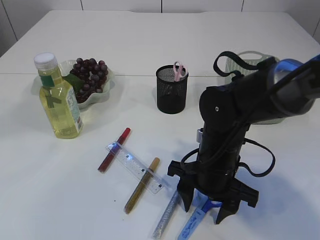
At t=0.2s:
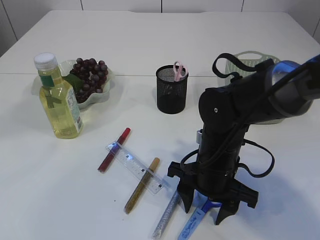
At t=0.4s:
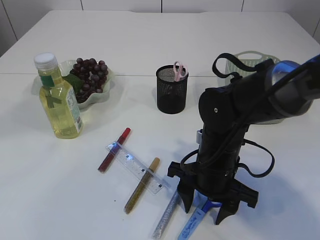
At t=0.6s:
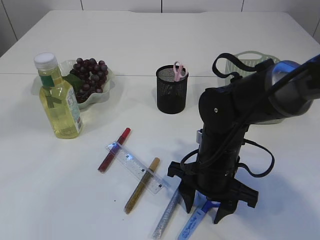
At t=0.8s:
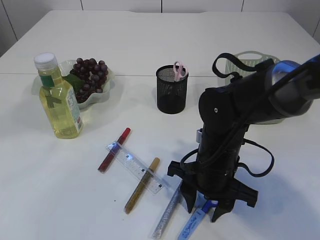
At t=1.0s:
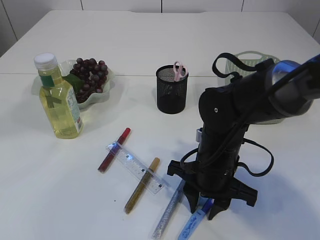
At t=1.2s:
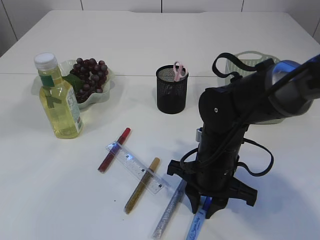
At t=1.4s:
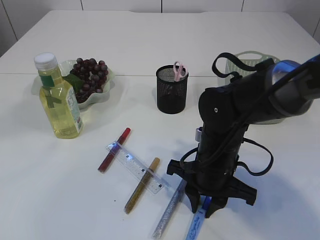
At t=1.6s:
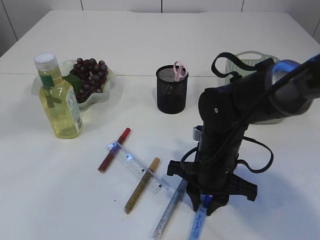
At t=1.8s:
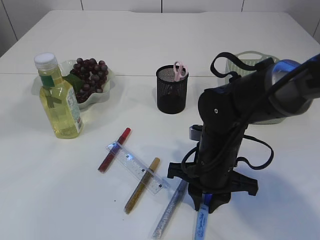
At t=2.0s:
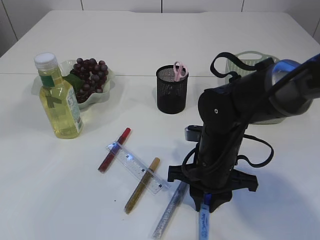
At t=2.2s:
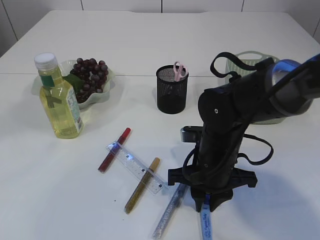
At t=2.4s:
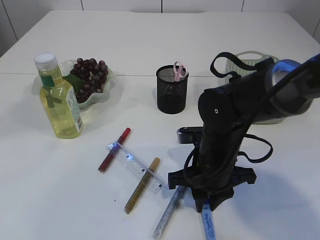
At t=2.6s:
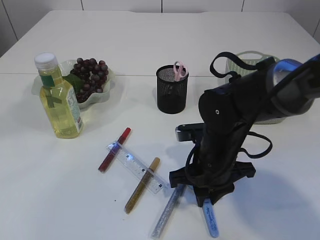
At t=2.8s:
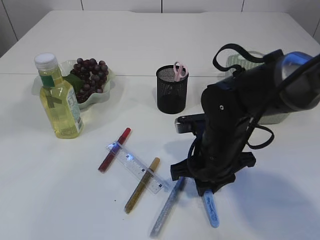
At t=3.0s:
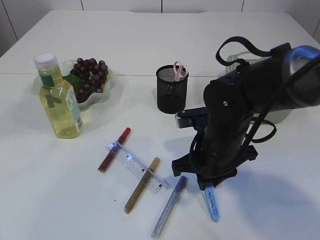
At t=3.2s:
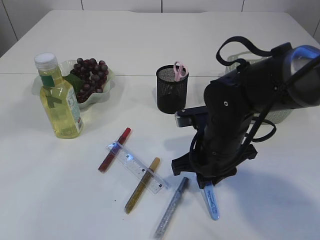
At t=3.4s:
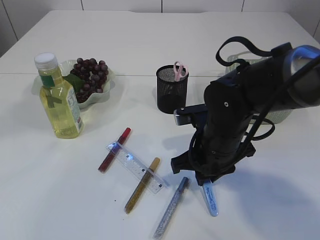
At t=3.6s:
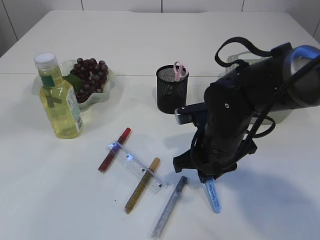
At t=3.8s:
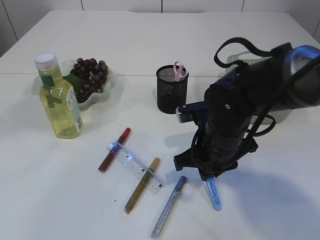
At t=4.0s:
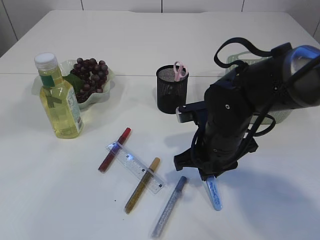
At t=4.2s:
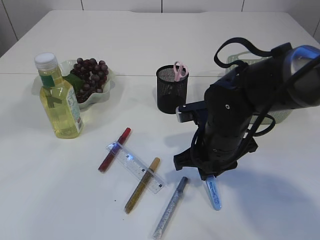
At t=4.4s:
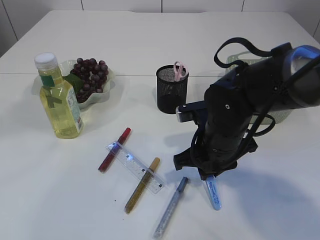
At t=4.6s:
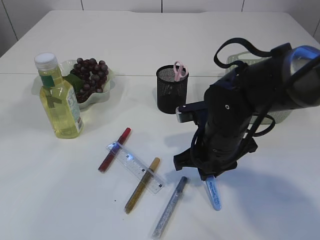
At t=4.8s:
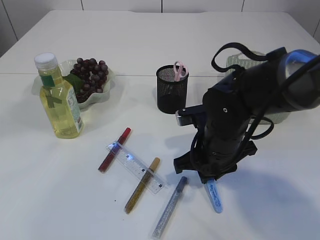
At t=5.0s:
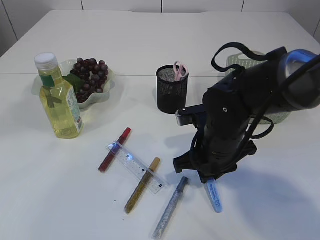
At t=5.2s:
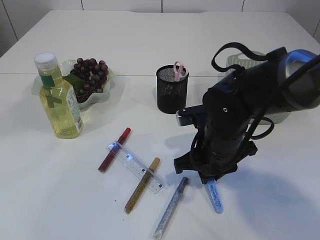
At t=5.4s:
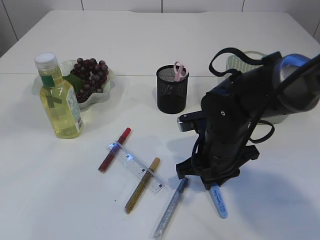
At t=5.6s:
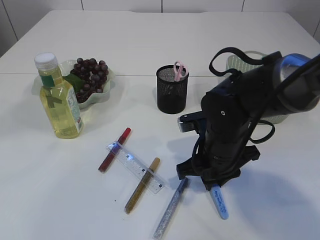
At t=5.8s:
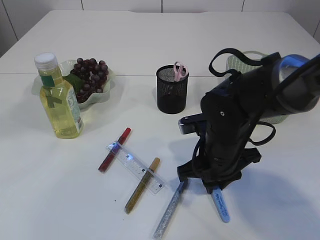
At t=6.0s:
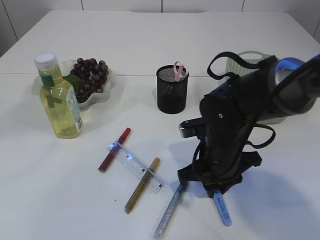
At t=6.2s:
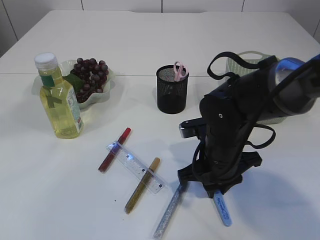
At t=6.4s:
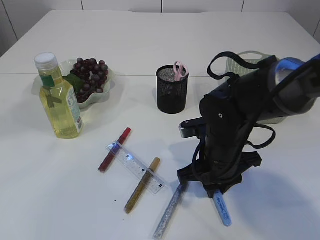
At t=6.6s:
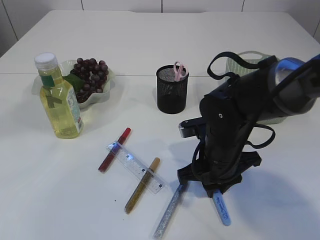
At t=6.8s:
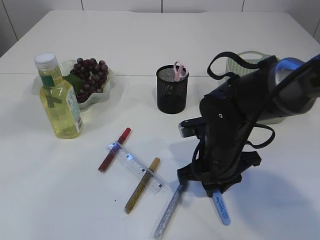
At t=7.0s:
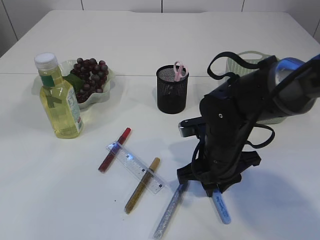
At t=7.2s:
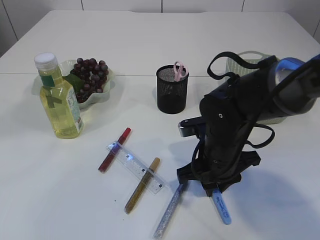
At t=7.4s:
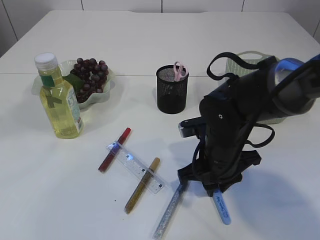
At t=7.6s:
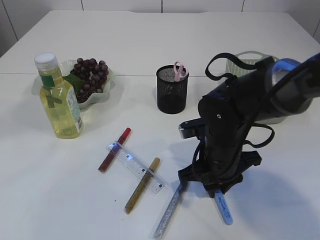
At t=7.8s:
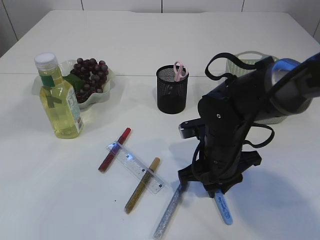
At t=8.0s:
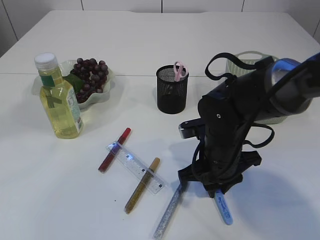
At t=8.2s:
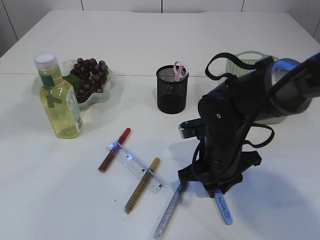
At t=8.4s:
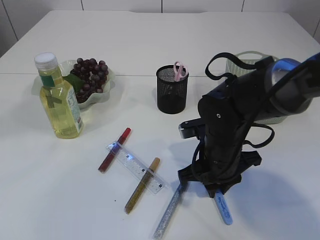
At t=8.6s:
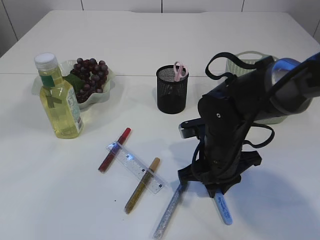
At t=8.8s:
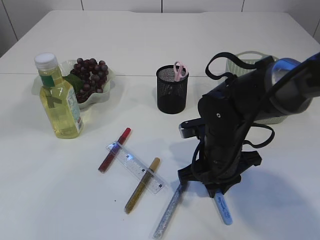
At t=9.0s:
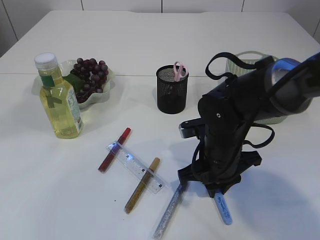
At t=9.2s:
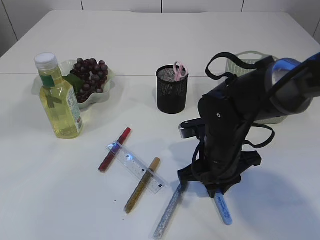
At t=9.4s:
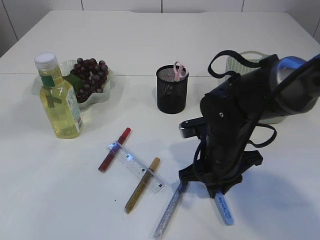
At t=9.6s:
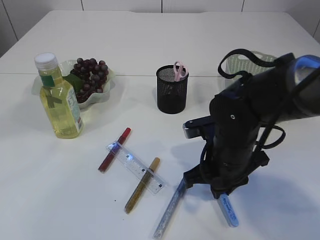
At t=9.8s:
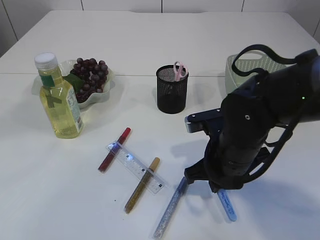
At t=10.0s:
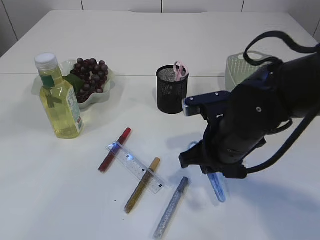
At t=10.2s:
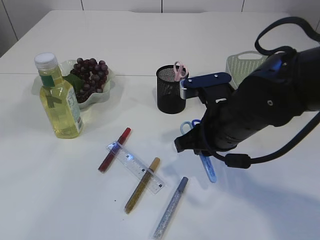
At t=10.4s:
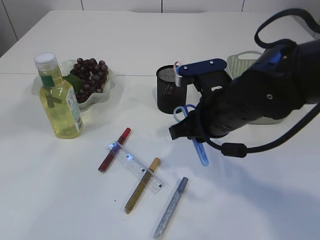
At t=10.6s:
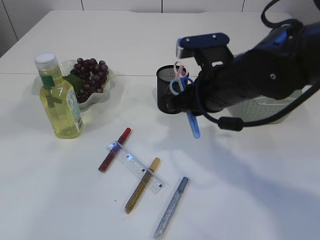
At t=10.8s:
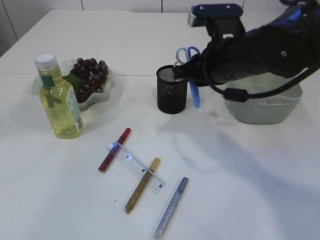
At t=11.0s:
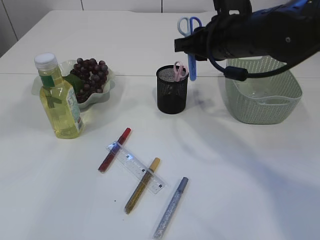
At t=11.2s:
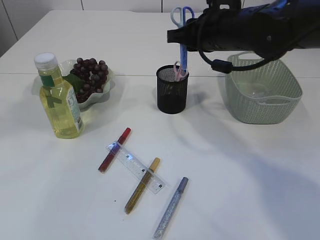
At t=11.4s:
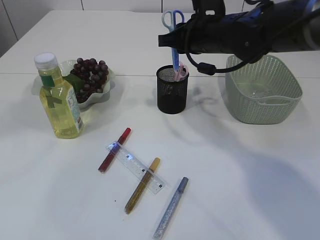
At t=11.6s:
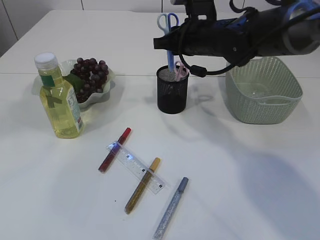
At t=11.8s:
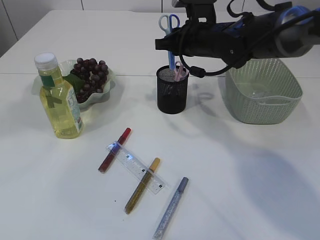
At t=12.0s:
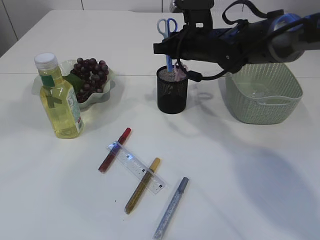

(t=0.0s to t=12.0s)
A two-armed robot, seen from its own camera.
Step, t=0.0s - t=10.4s: pick up the blue scissors.
t=0.0s - t=1.6s: The right gripper closes its fingers.
t=3.0s - t=6.0s: The grippers move only a little.
t=6.0s - t=9.0s: Both grippers stay about where they are.
t=9.0s - t=10.4s: The right gripper shifts approximately 10 cm upward.
t=10.4s - t=12.0s: The right gripper travels forward by about 15 cm.

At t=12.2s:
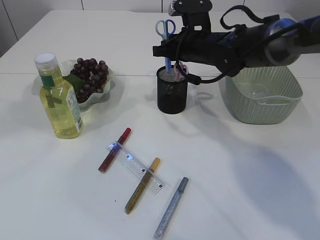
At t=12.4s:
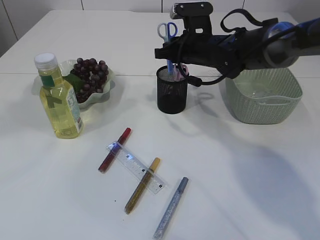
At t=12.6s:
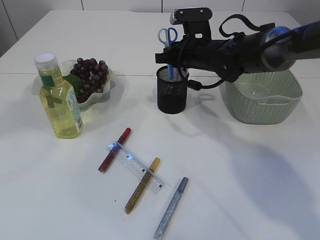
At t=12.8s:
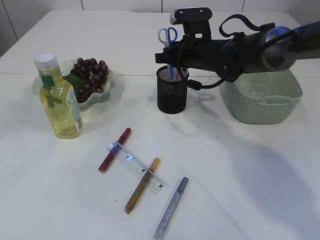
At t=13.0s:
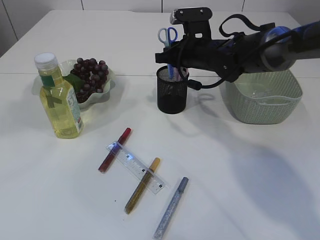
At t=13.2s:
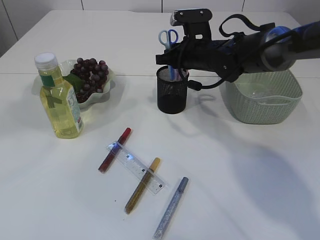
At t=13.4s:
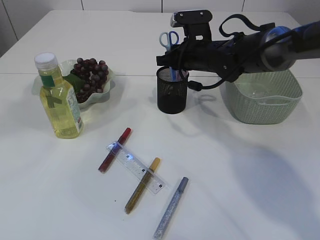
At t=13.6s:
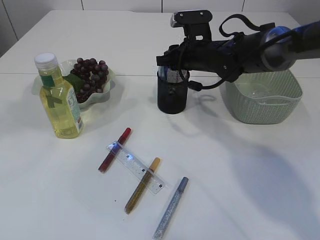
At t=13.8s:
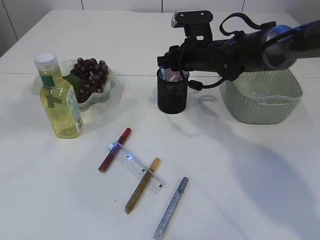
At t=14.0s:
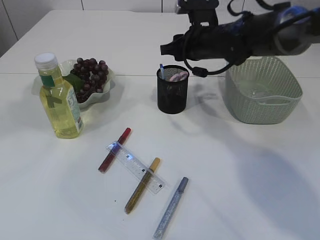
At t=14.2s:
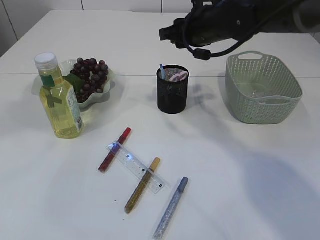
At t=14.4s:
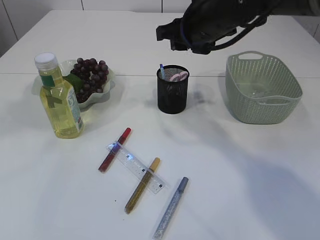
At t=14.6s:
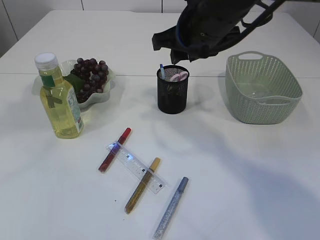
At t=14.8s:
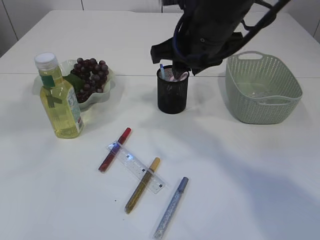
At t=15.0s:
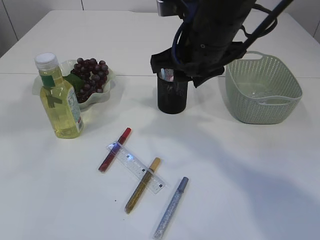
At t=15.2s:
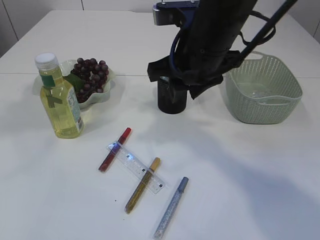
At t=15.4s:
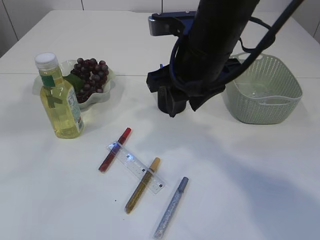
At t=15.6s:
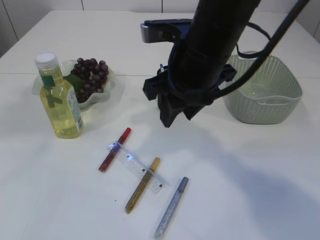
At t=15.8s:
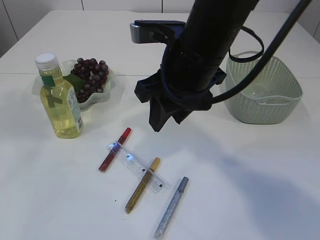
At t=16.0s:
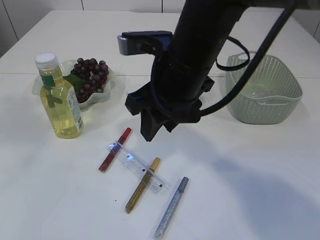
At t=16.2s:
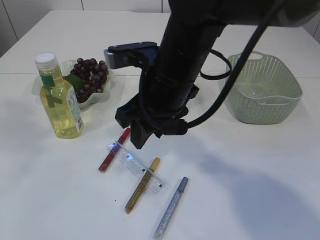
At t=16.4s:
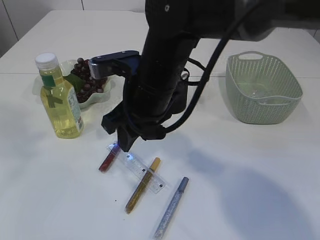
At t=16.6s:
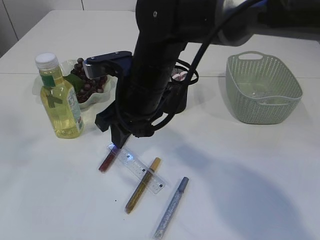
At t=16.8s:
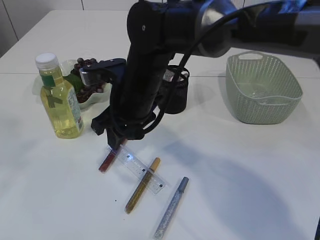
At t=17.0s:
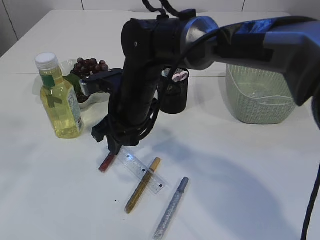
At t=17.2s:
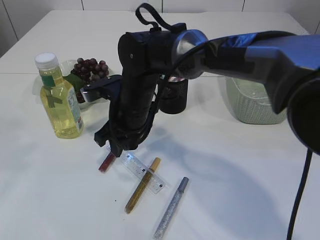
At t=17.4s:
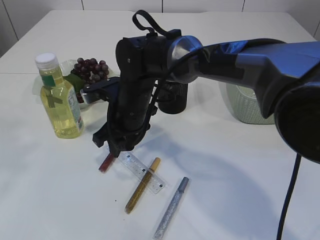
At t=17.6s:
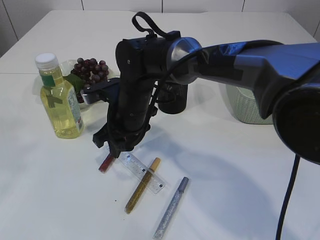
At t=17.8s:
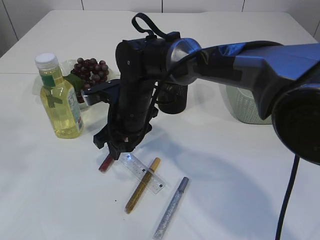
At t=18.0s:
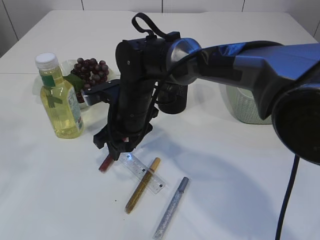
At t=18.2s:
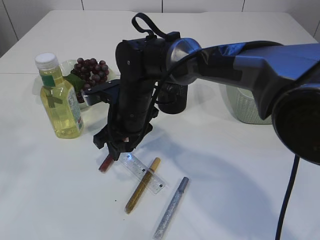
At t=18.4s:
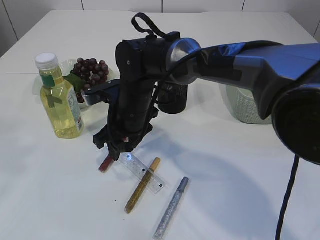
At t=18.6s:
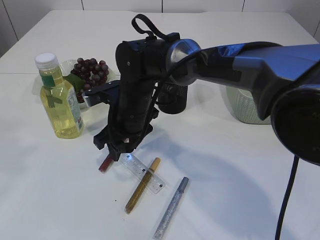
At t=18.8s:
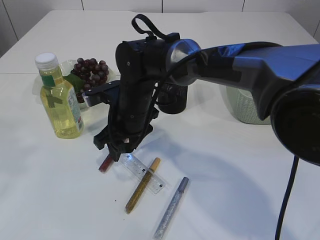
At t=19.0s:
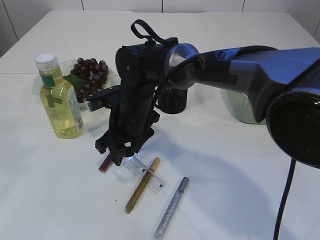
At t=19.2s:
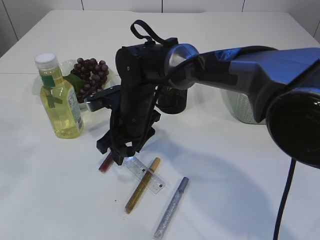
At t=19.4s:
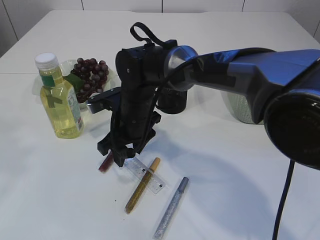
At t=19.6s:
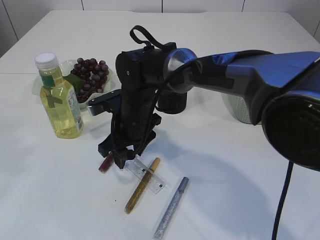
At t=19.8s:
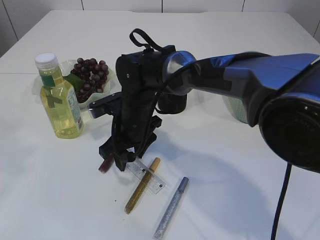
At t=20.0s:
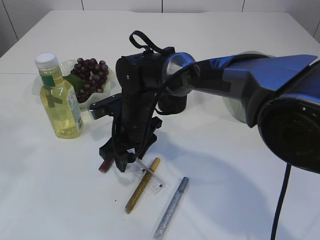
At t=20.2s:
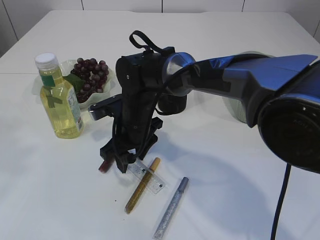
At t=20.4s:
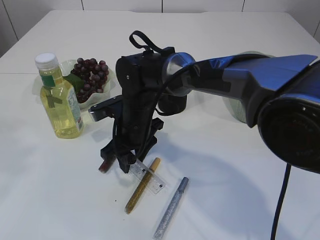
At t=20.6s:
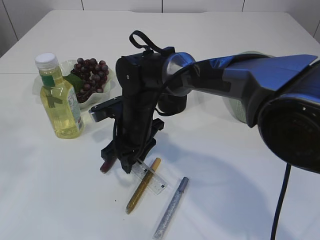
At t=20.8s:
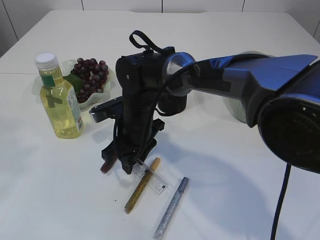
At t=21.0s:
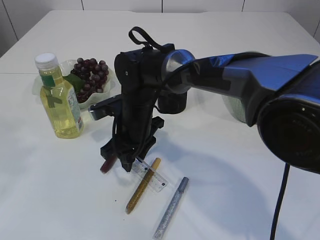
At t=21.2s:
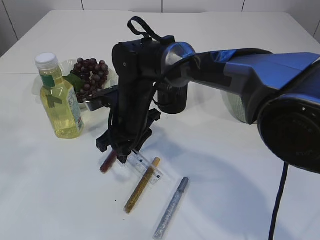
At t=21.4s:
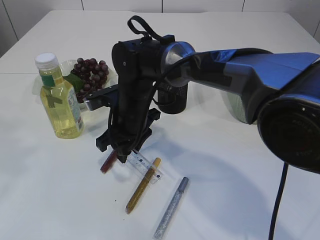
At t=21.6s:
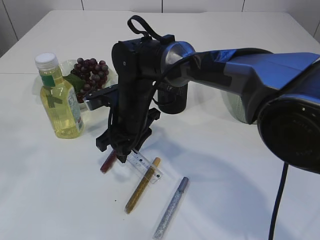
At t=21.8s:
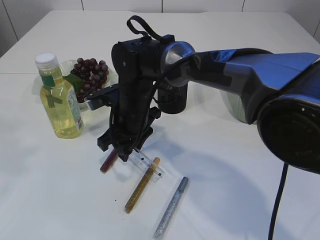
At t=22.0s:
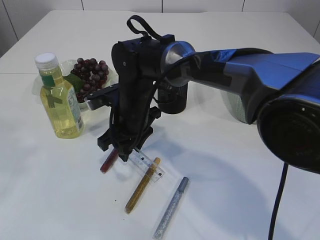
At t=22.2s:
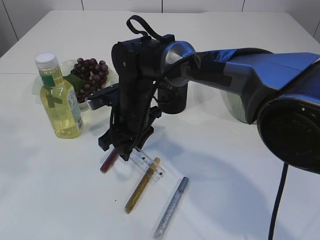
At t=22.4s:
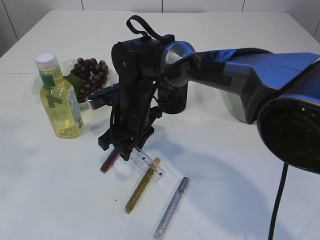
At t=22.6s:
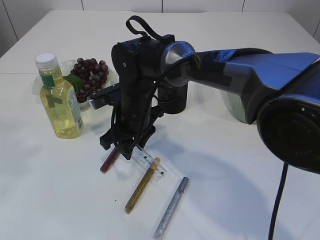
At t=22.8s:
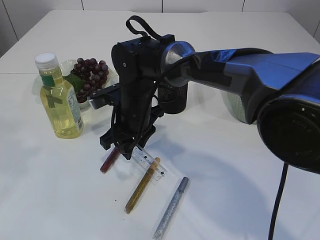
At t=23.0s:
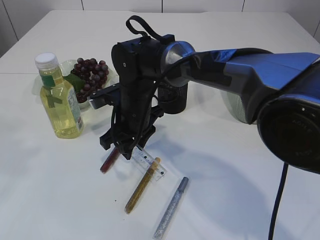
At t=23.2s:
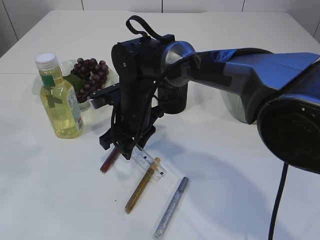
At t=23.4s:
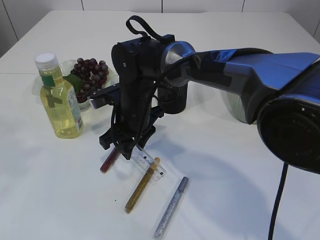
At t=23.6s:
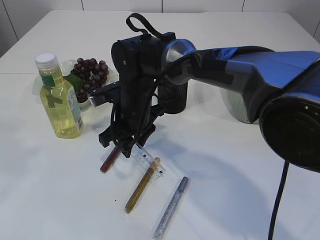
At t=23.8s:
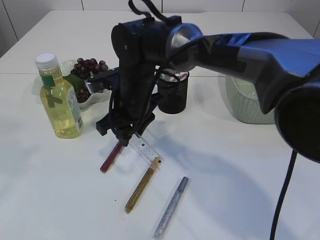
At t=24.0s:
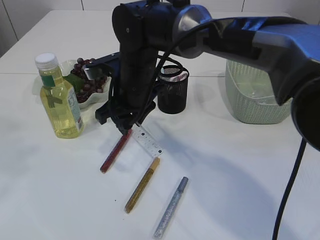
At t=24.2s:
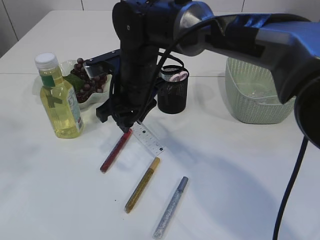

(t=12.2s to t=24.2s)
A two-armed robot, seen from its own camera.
Step, t=12.2s - t=14.6s: Place the blue scissors into the pen holder.
t=12.2s - t=13.8s: The right gripper opens.
t=13.8s - t=15.2s: The right gripper is displaced backward and upward by approximately 20 cm.
t=15.2s - t=16.6s: The left gripper is displaced backward by approximately 5 cm. The right gripper travels to the left and downward by roughly 10 cm.
t=16.6s - t=18.2s: The right gripper is displaced downward by approximately 10 cm.
t=18.2s - t=19.8s: The grippers move only a little.
t=19.8s - t=21.2s: The right gripper closes.
t=21.2s - t=22.6s: Neither gripper changes place.
t=22.6s - t=24.2s: The right gripper travels upward by roughly 5 cm.
